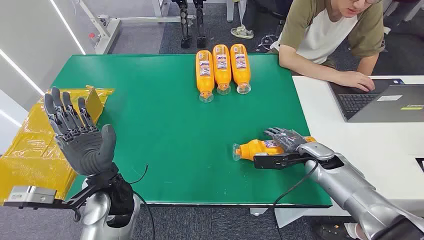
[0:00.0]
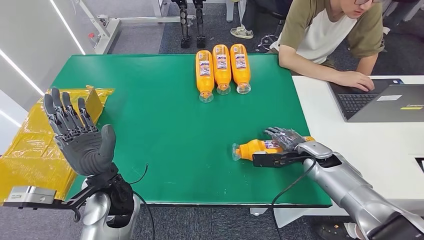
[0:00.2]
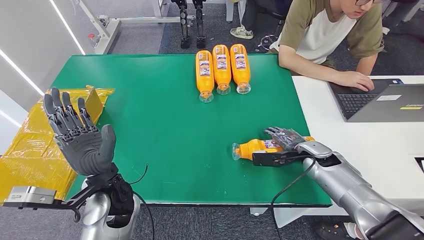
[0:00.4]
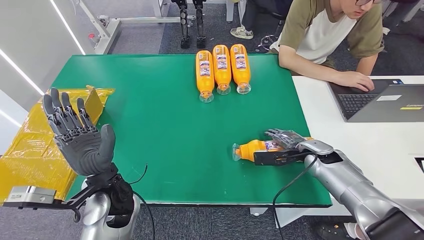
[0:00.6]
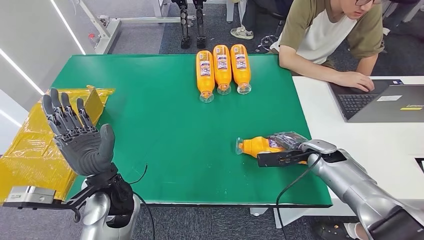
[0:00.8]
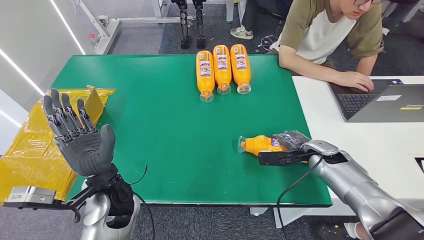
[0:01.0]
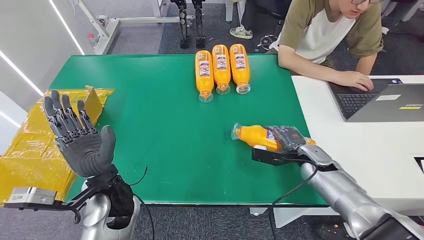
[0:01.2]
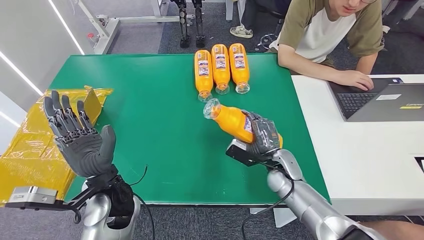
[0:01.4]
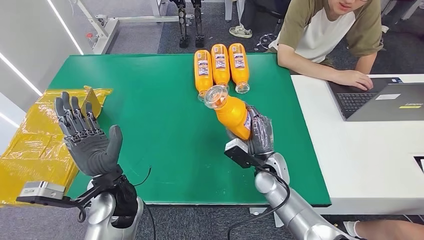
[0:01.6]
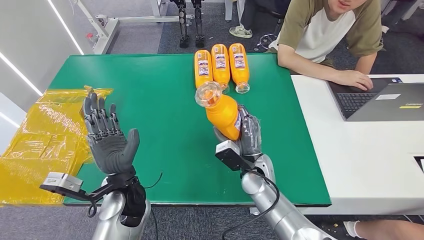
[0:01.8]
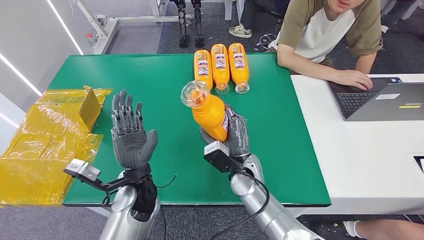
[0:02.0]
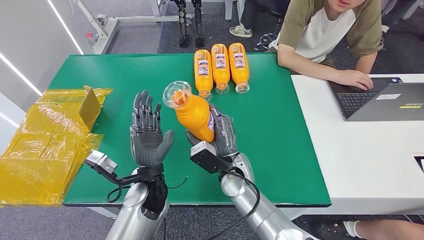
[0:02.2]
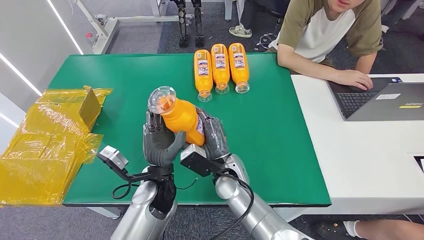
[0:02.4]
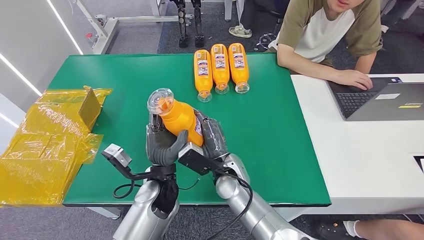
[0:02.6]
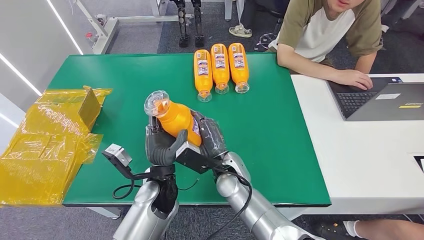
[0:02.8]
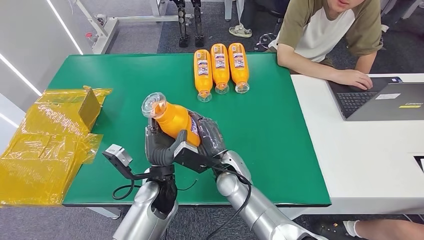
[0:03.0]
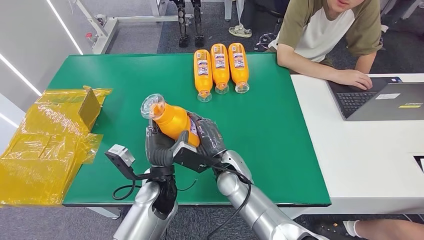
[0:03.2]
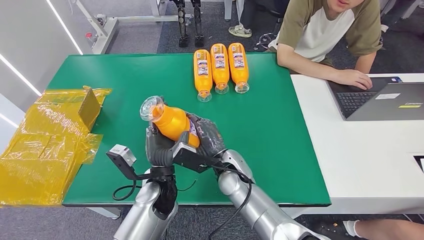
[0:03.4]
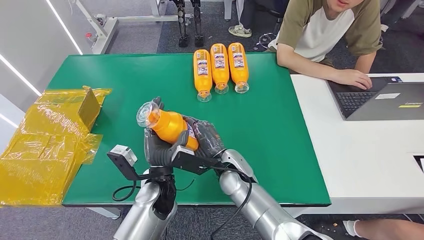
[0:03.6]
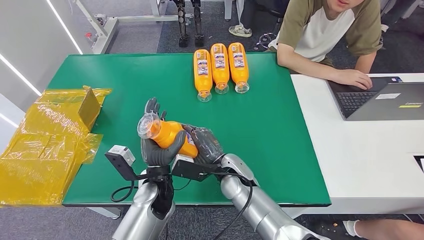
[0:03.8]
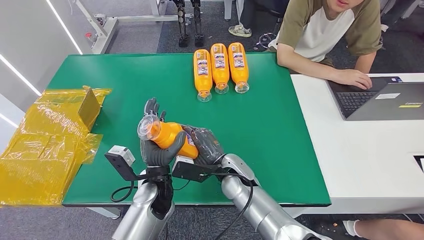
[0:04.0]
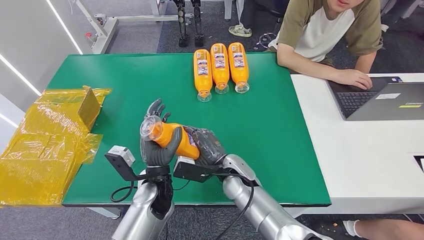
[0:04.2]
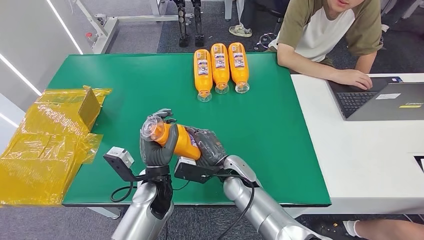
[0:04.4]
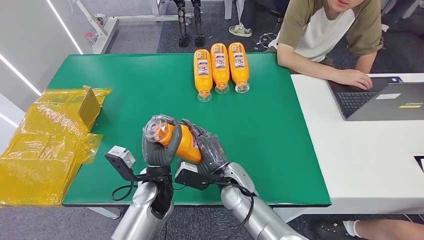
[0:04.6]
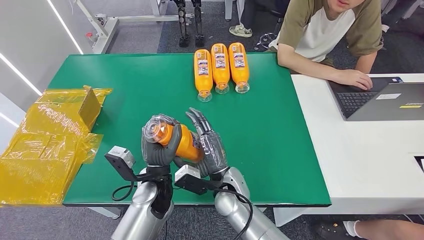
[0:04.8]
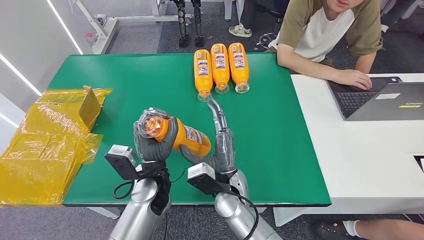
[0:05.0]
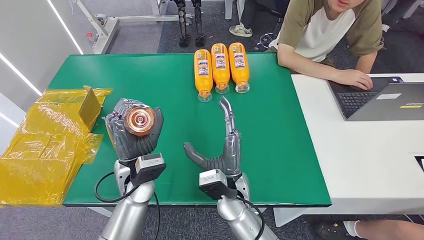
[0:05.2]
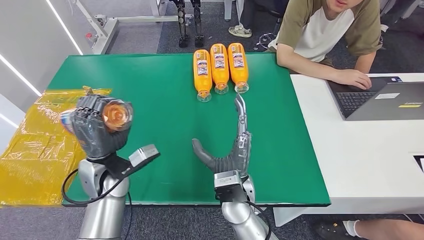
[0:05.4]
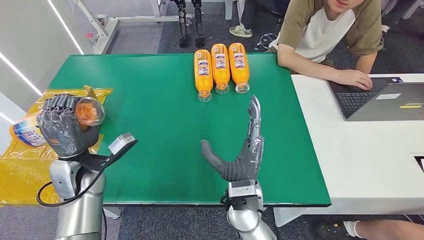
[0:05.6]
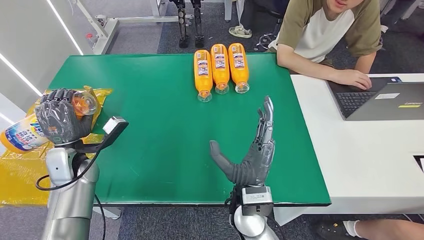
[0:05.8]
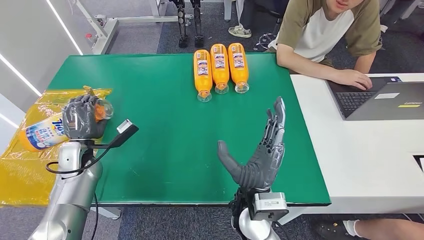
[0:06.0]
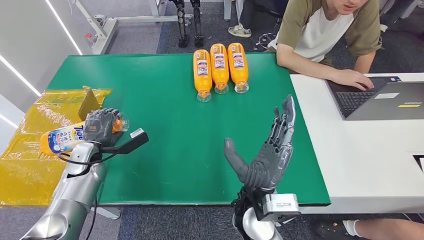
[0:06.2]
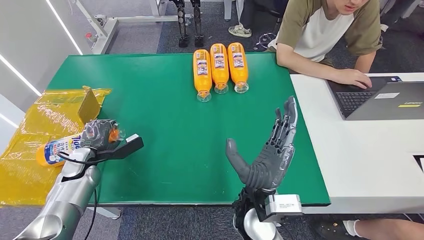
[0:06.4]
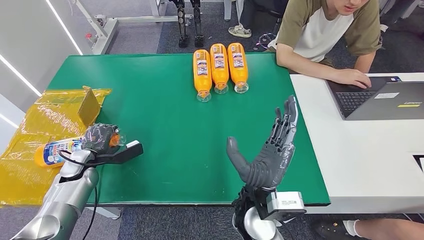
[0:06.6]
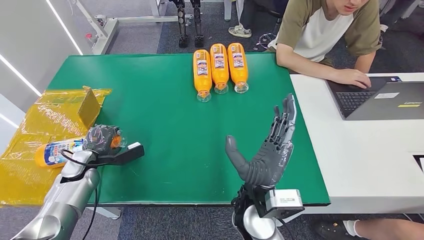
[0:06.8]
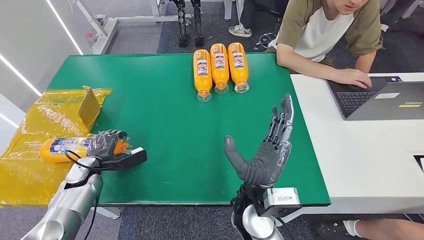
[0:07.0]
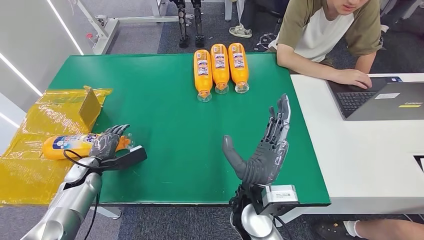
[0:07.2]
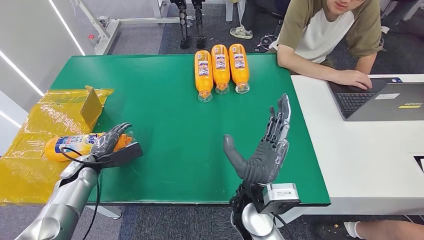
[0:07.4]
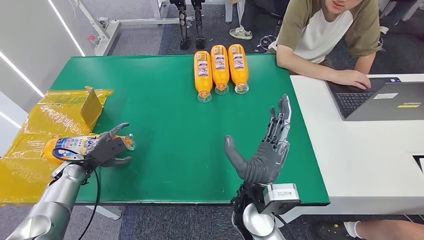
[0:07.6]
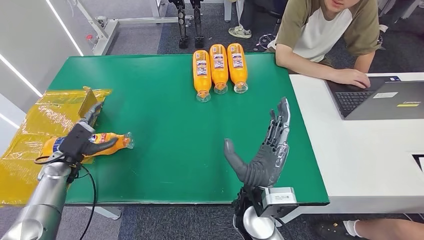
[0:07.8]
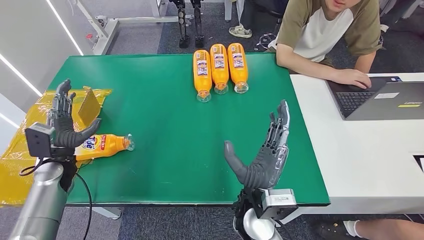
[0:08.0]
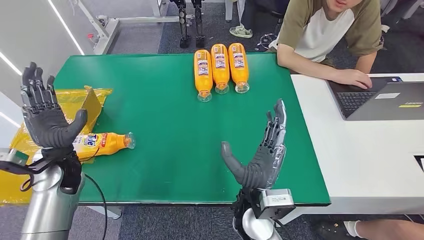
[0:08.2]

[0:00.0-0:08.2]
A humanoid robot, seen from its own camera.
Step, 0:00.0 to 0:02.6: Pick up the bottle from the table.
Step, 0:02.8 to 0:08.0: Turn the bottle to the front side.
0:05.0 to 0:06.6: The right hand heads upward and backward, covering roughly 10 cm; the left hand goes approximately 25 cm to the left.
0:06.6 to 0:08.2: The left hand moves upward, roughly 10 cm.
